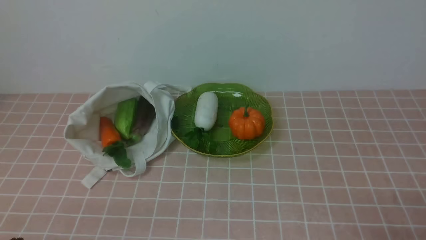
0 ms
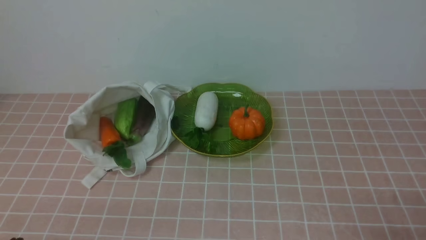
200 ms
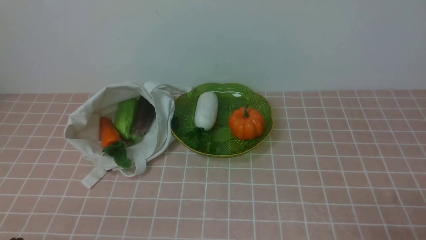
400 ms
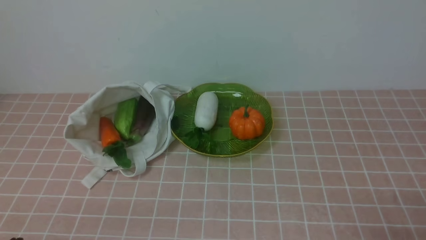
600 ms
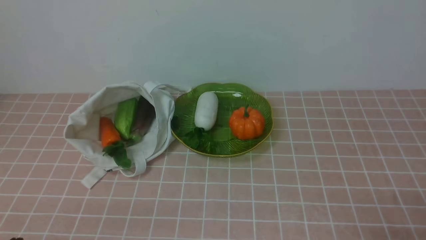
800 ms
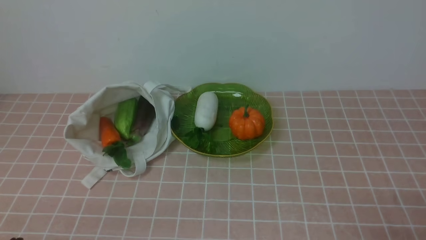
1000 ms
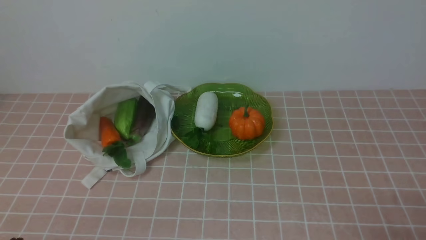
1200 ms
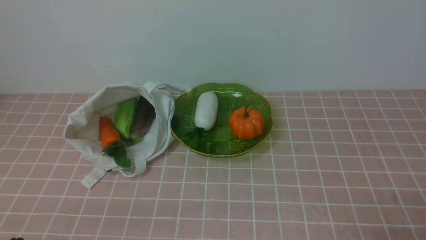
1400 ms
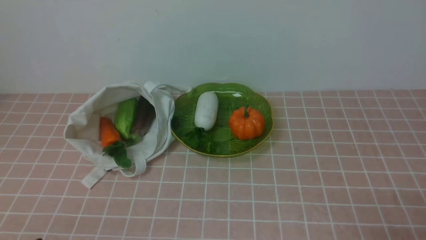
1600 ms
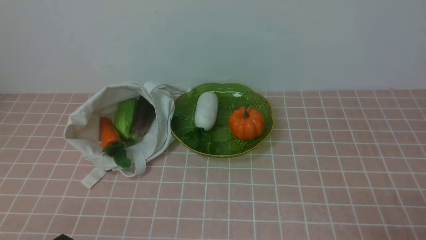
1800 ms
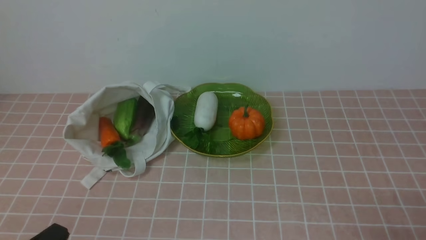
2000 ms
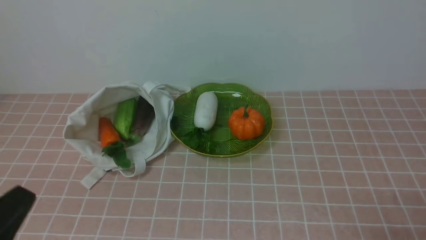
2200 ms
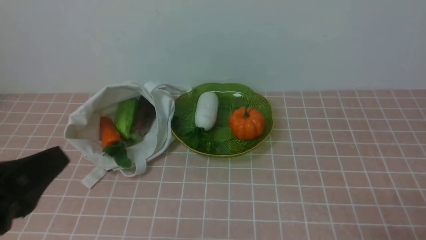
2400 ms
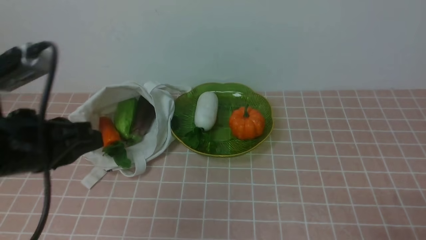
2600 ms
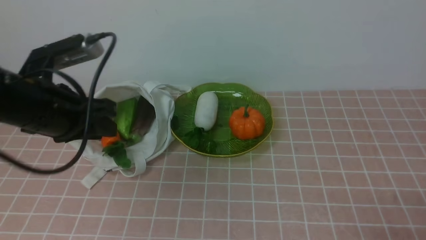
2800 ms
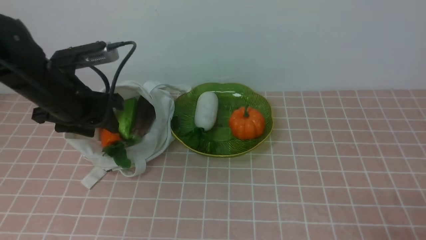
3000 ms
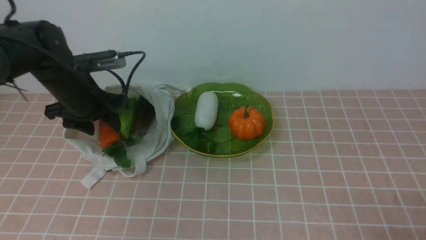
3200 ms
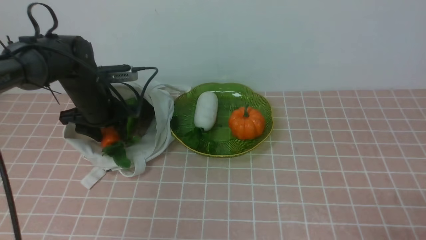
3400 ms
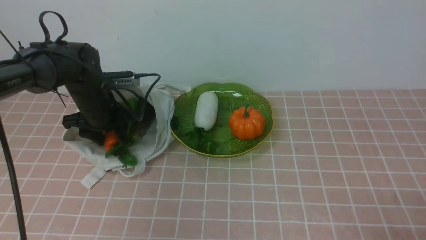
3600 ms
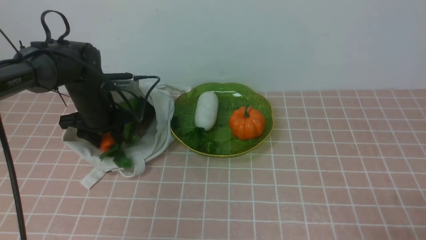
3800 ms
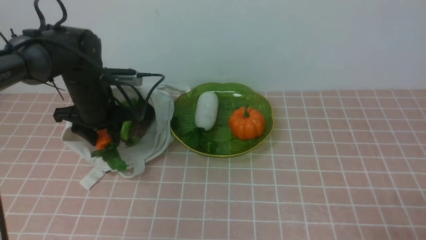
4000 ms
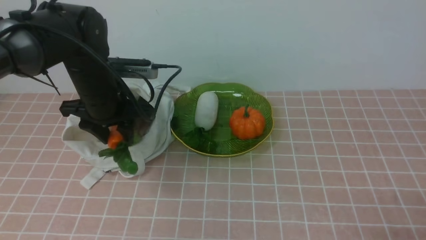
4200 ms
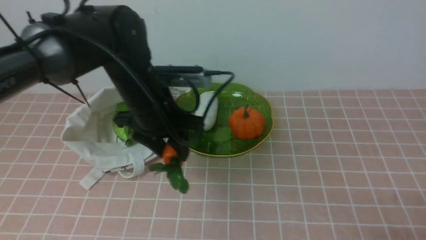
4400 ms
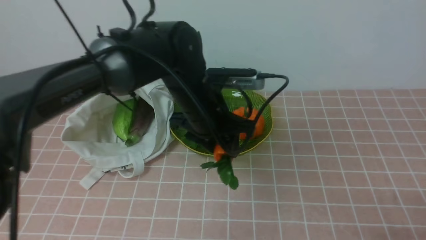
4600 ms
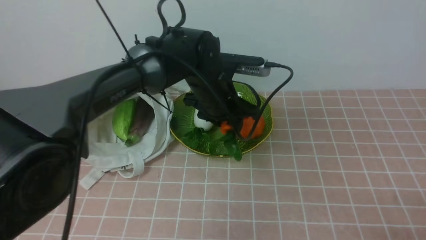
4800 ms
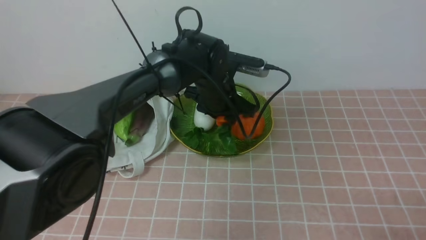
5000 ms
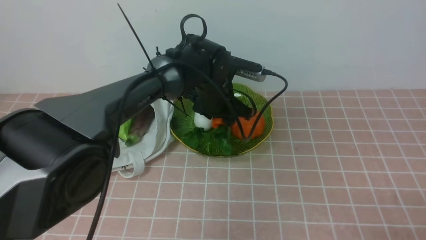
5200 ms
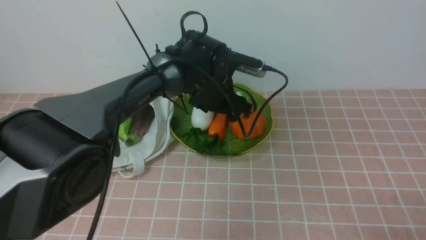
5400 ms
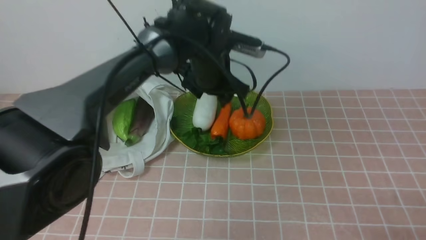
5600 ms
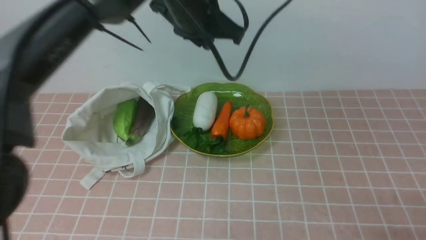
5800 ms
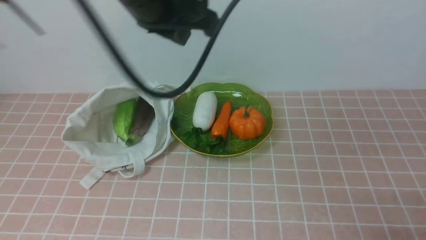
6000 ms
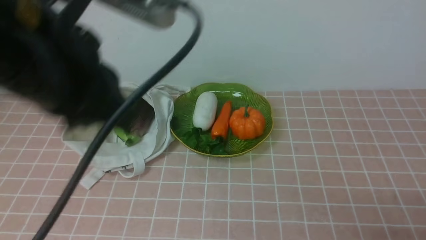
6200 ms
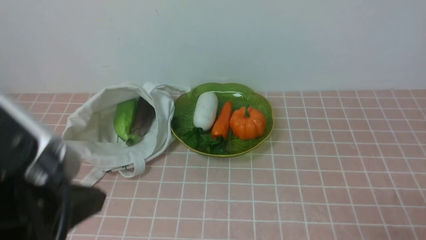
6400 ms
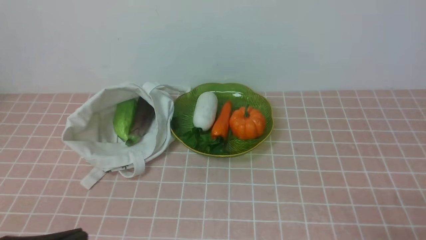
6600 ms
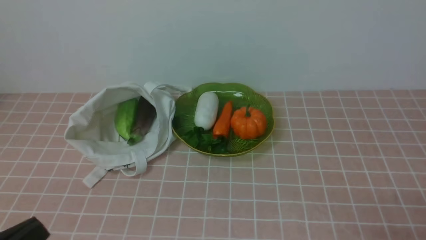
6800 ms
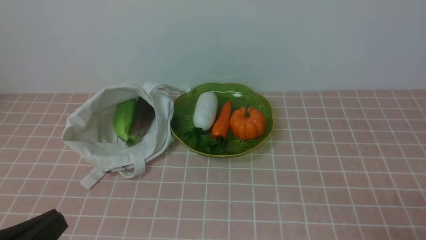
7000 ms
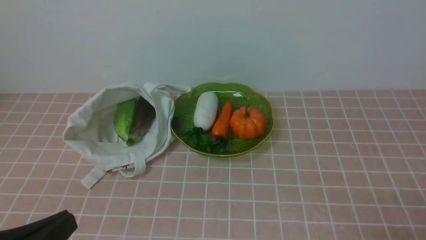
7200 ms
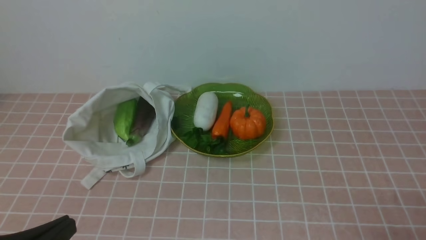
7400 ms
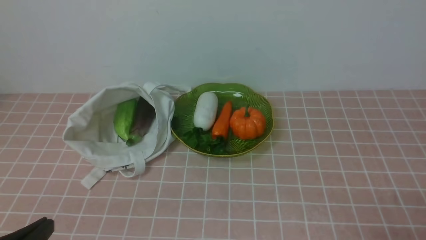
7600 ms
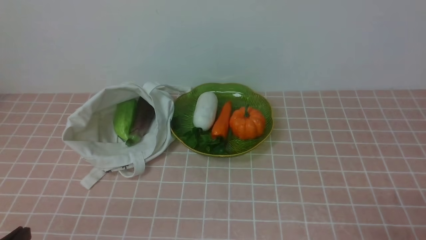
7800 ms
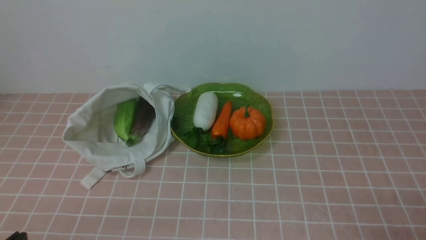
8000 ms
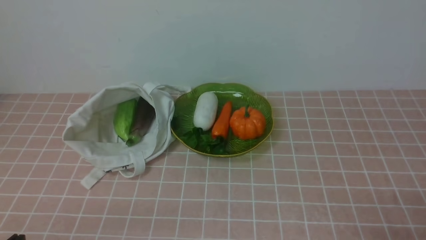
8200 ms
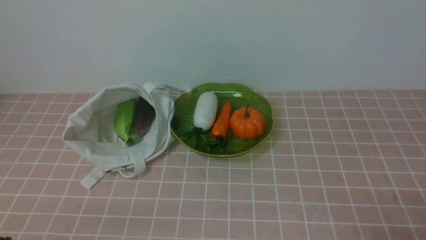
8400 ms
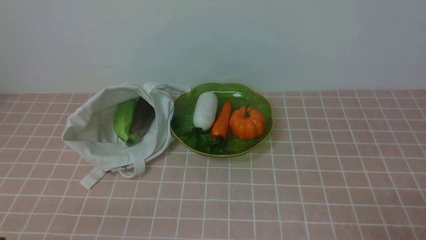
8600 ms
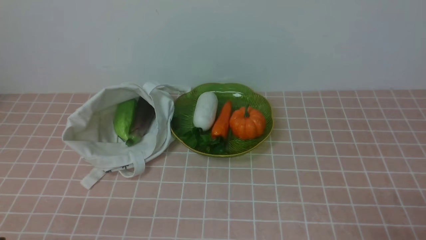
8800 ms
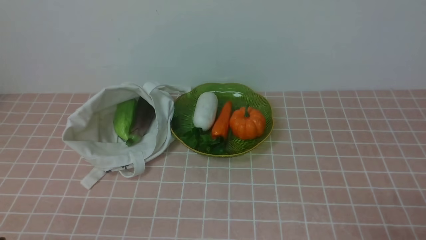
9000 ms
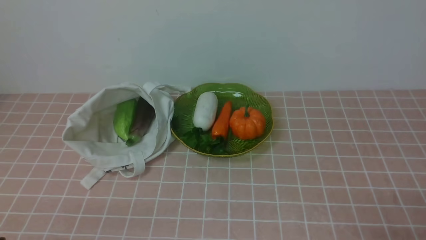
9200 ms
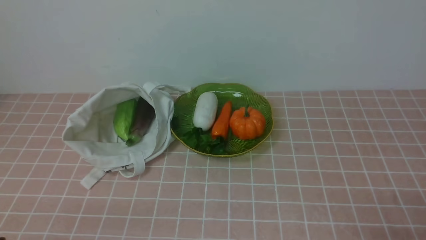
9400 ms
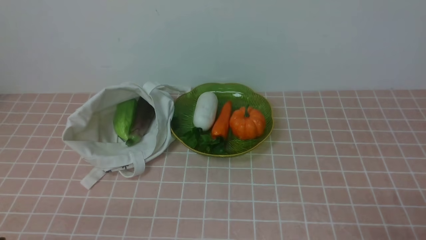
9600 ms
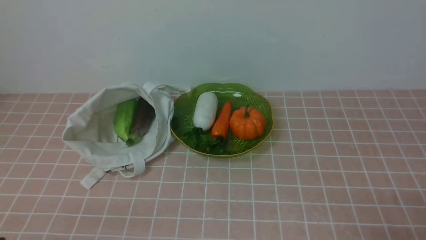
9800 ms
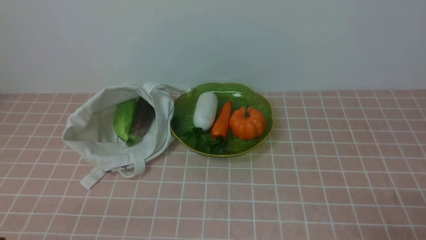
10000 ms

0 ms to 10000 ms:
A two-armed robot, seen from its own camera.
Task of the whole recording: take vegetables from bag on pink coffee tablecloth place on plate.
Step, 0 ms to 3600 ms: Grasp the carrot with left gripper.
Step, 3800 ms to 5600 ms: Place the carrot on the plate with left gripper.
1400 ms to 2800 ms: The left gripper heads forward and upward, covering approximately 25 cm, and opens up.
2800 ms to 4200 ms: The left gripper heads forward and downward, covering approximately 15 cm, and opens up.
4200 ms to 5800 ms: The left gripper moves to the right and upward, some 20 cm.
5800 ms to 7200 ms: The left gripper travels backward and to the left by roughly 40 cm, and closes its fingers.
7200 ms to 8600 ms: The left gripper moves downward, approximately 10 cm.
8600 ms to 10000 ms: Both grippers stay put.

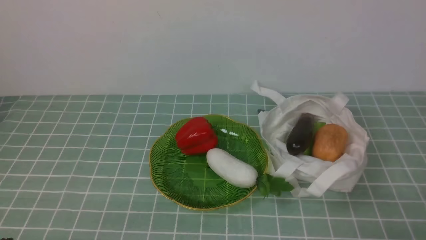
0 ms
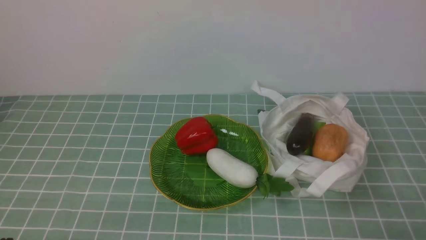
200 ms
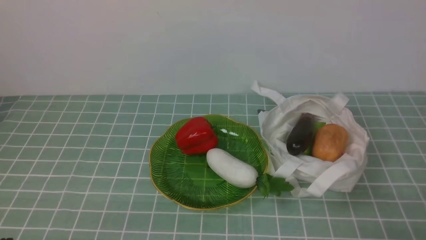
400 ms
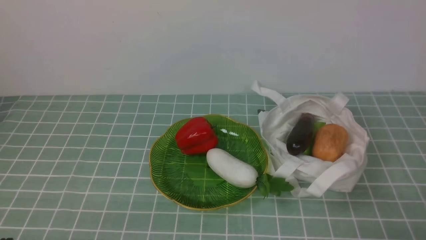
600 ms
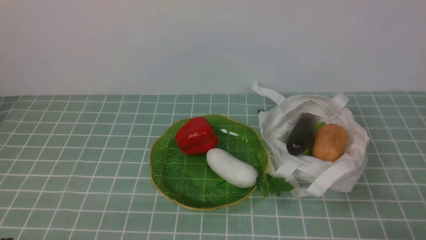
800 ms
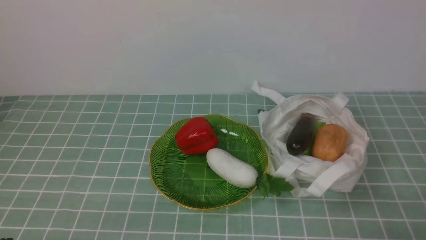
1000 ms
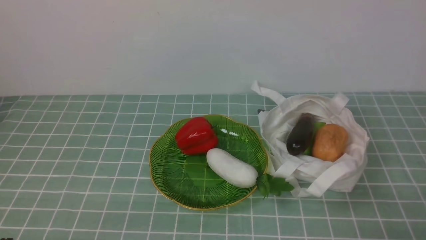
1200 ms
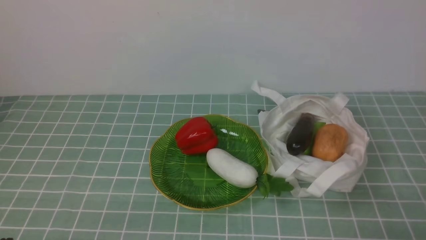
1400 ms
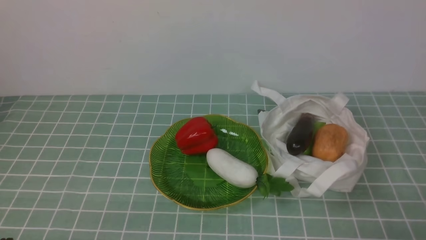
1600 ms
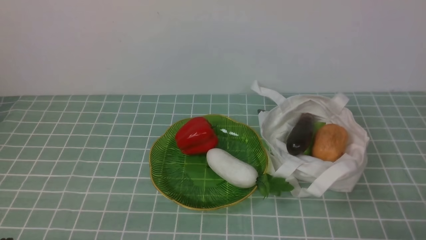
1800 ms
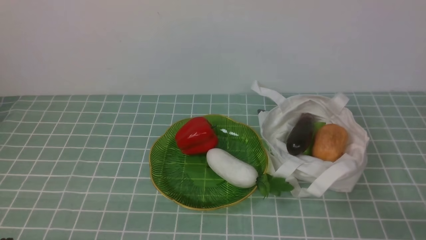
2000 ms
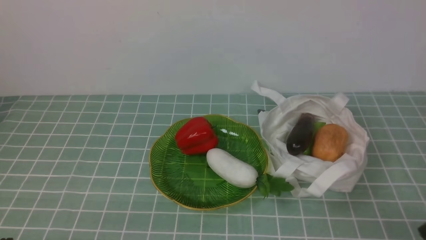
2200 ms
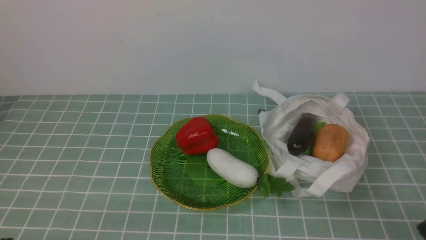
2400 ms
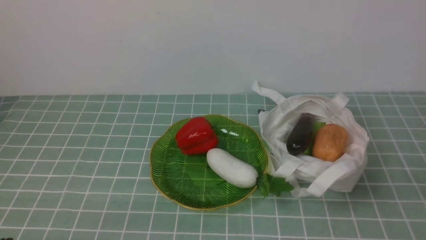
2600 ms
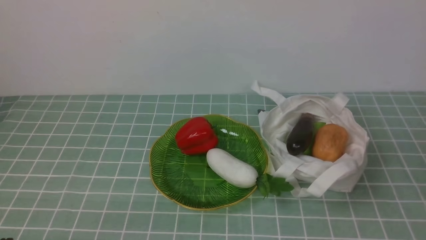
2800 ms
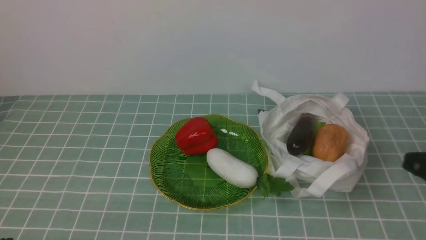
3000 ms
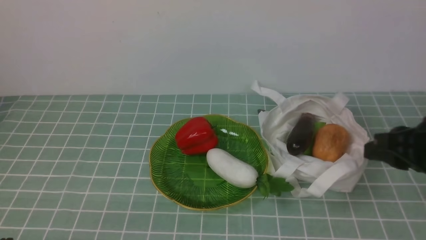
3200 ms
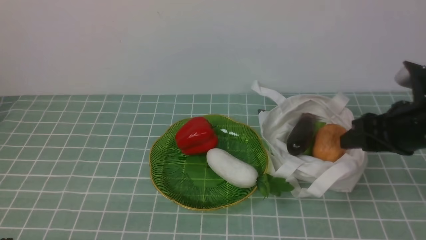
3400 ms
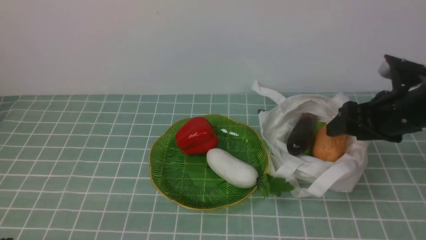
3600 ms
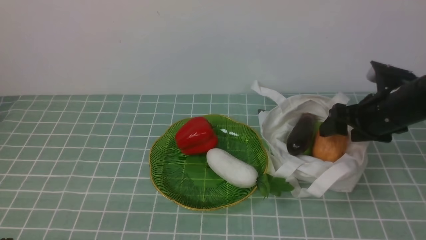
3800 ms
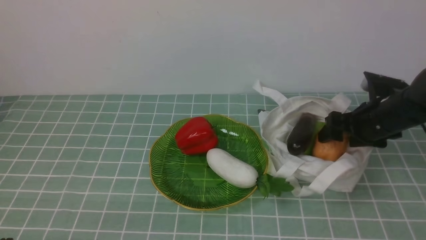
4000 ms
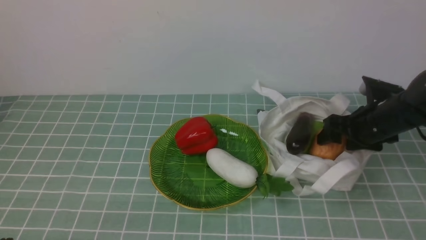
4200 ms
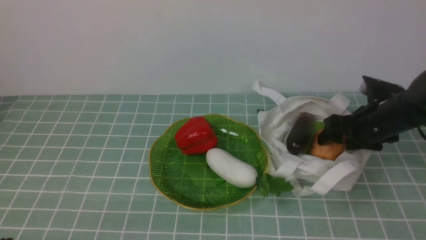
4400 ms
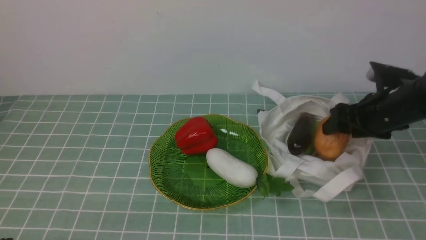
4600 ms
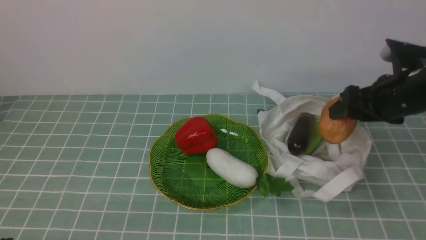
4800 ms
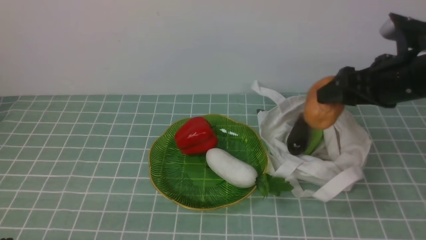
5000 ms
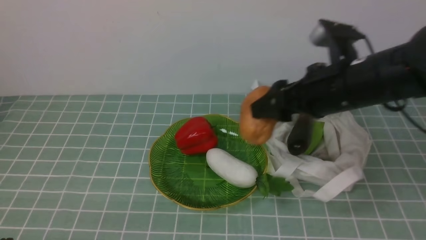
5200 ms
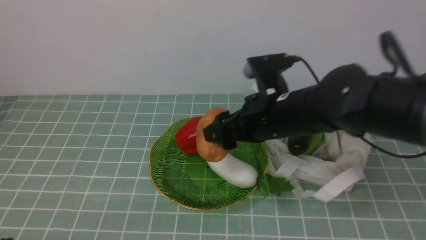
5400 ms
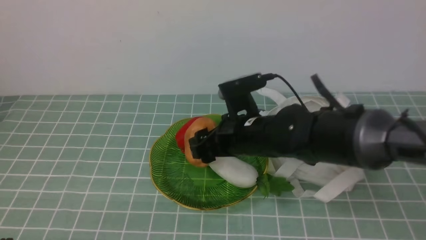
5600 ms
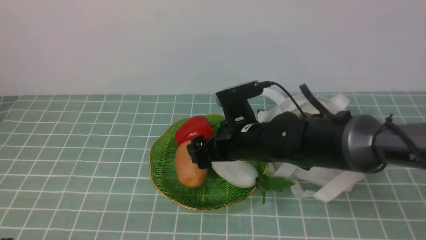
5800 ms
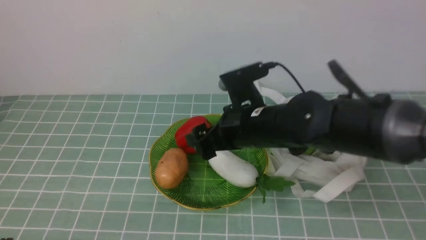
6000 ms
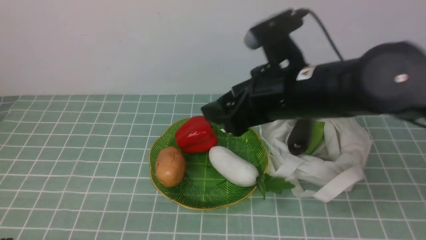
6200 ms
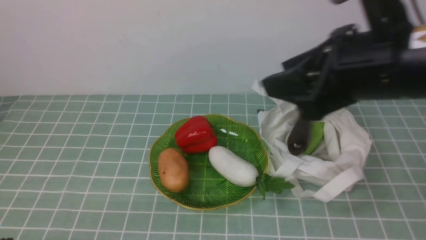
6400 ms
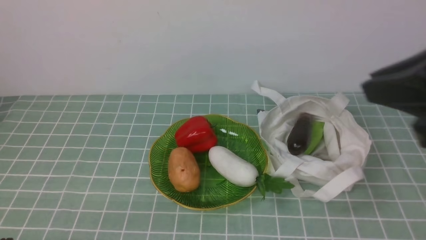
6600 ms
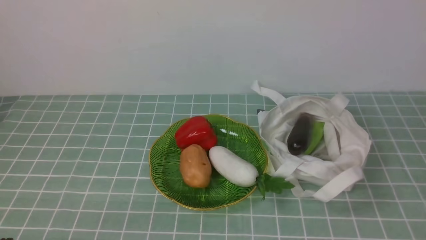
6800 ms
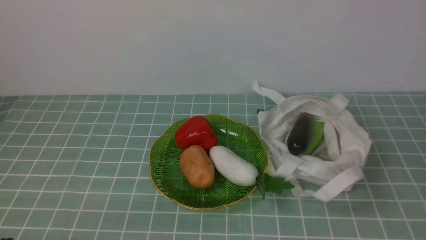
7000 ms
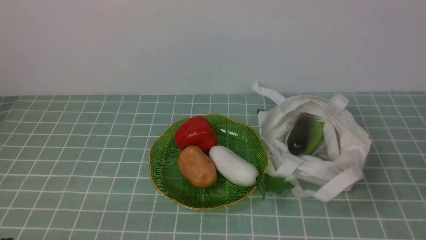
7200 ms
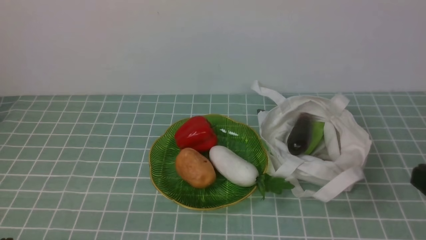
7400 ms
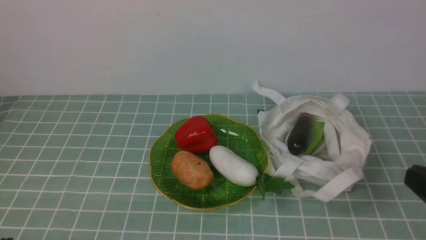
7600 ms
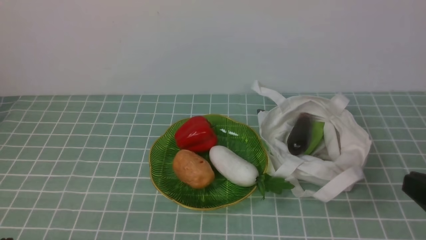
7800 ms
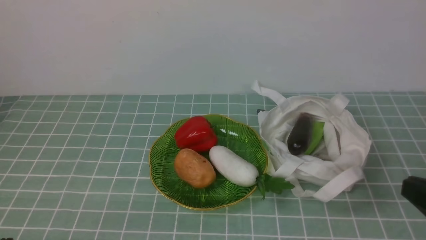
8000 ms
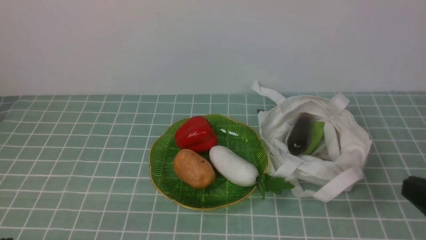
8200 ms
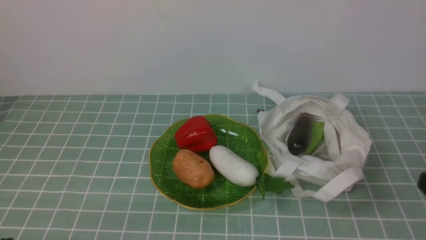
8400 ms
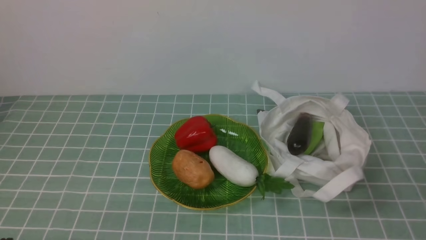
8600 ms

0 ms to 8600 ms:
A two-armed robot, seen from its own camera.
Task of the whole recording: take vegetables from cloth bag on blue coffee tablecloth place on plate.
Step, 0 ms to 4200 ms: Grasp the potato with right gripper.
Step, 4400 ms to 6000 ms: Place the potato on the plate with right gripper.
0 ms to 1400 ms: Both grippers stay put.
2800 ms to 4400 ms: The right gripper moves forward, approximately 25 cm, and opens up.
4400 ms to 5800 ms: The right gripper moves to the left, about 20 cm.
5800 ms to 7200 ms: The right gripper shifts roughly 35 cm backward, to the right and upward, and closes its fingers.
